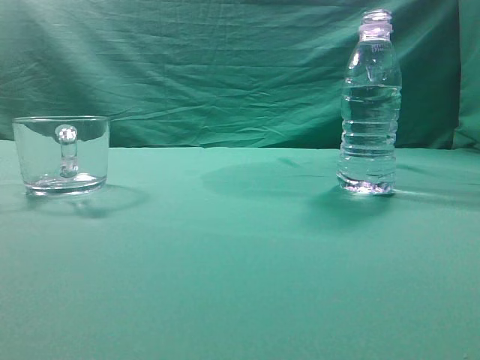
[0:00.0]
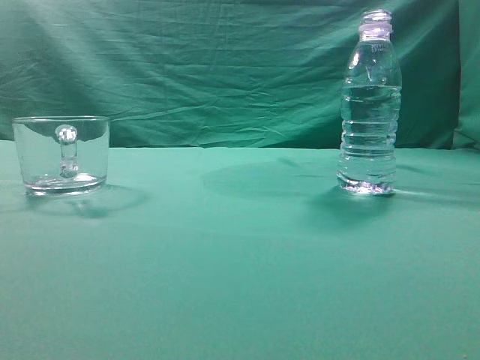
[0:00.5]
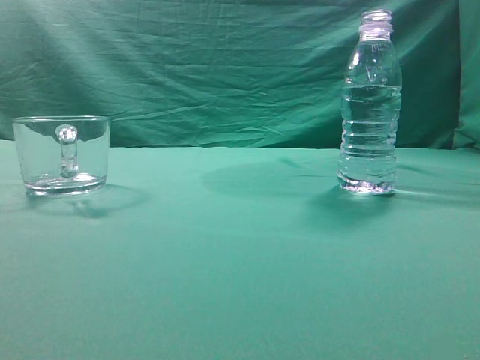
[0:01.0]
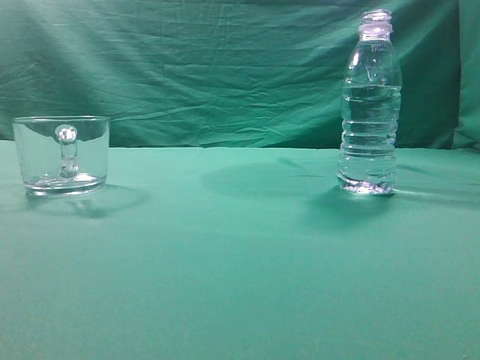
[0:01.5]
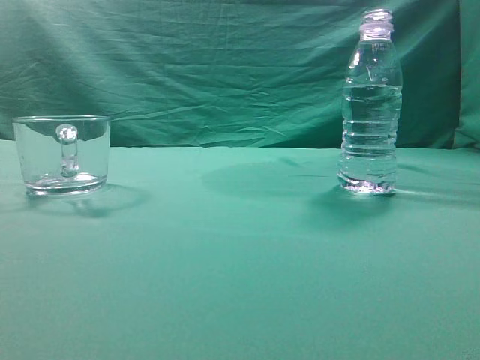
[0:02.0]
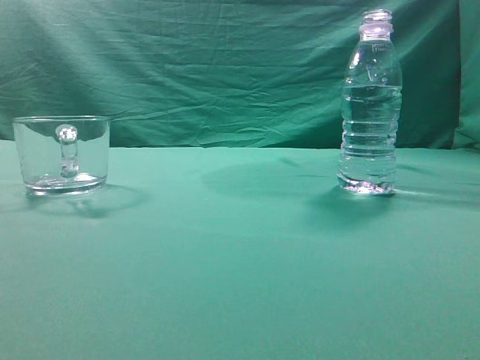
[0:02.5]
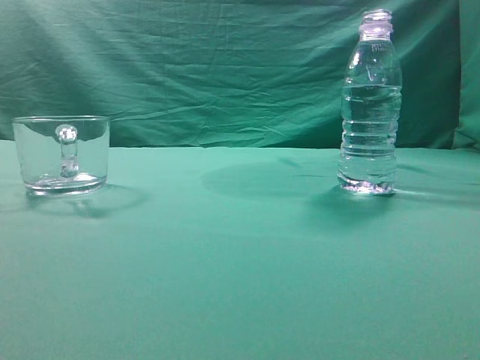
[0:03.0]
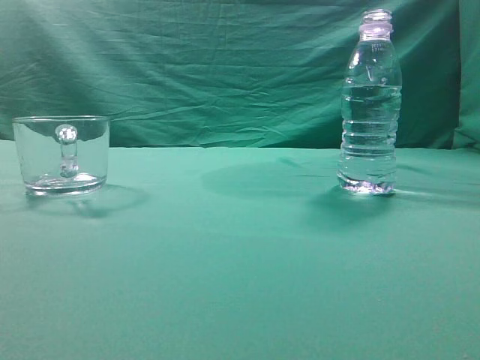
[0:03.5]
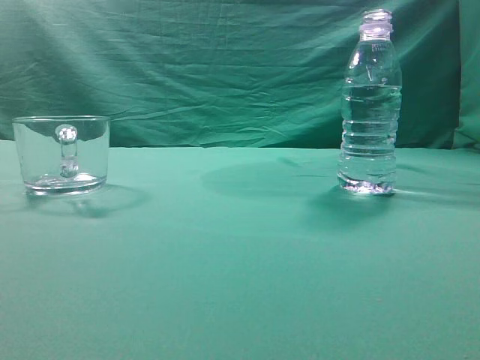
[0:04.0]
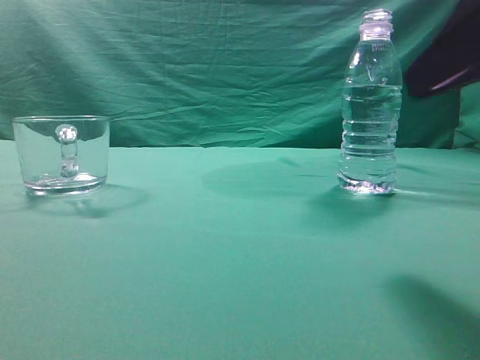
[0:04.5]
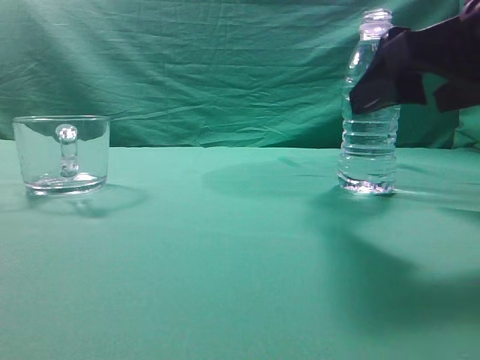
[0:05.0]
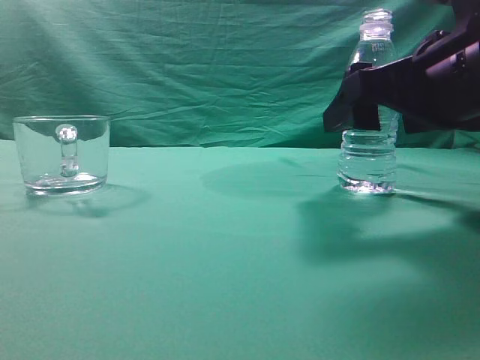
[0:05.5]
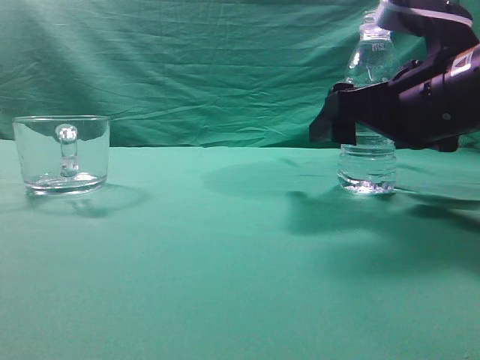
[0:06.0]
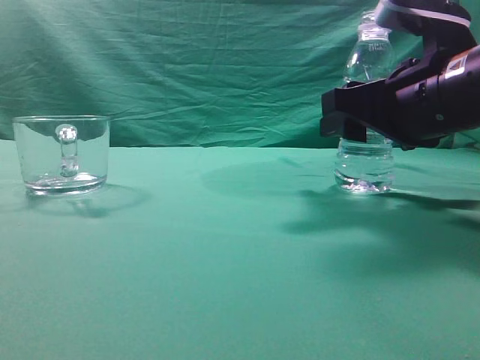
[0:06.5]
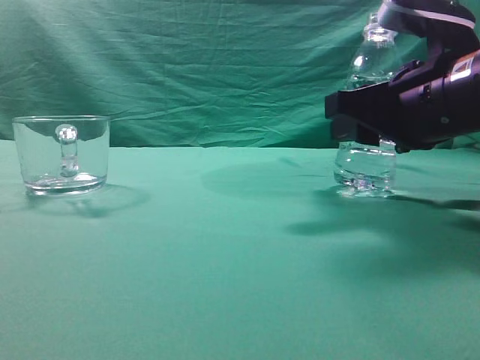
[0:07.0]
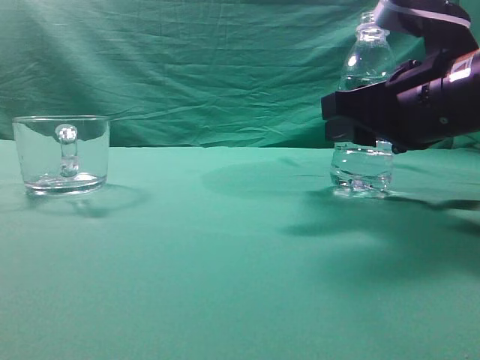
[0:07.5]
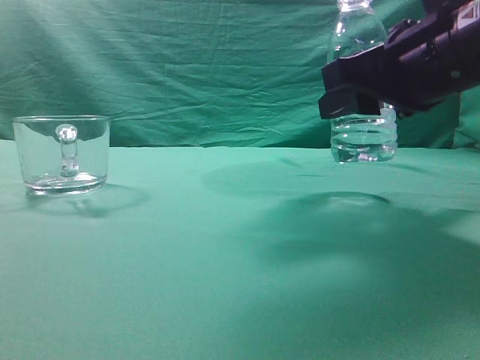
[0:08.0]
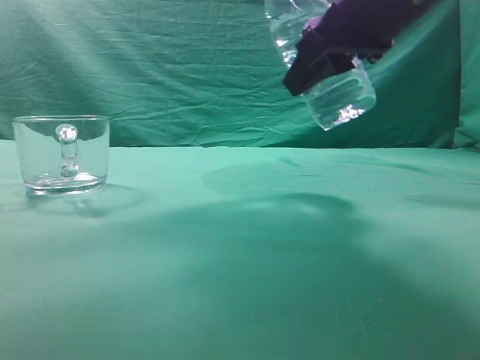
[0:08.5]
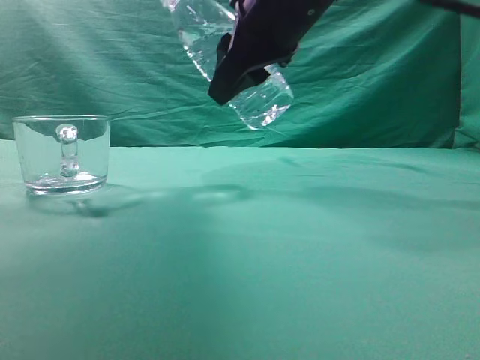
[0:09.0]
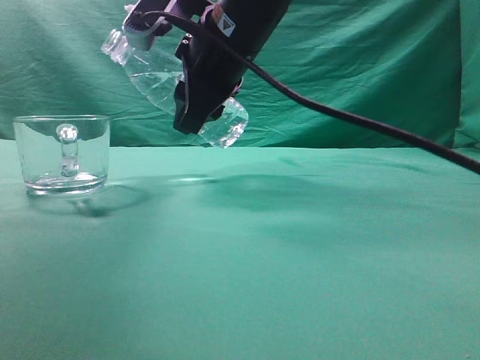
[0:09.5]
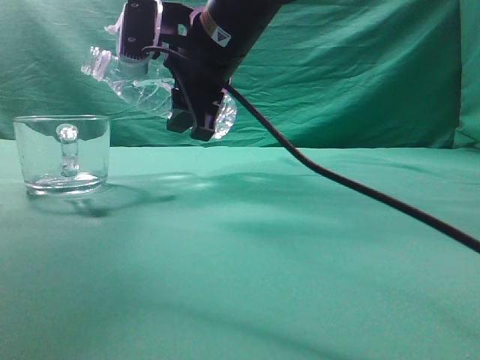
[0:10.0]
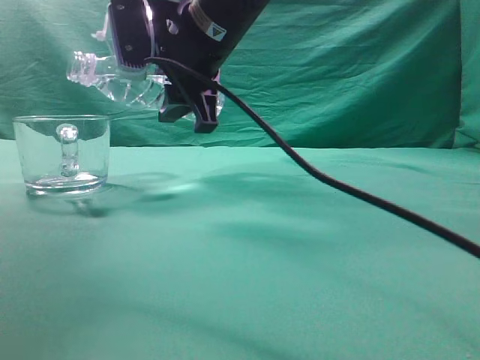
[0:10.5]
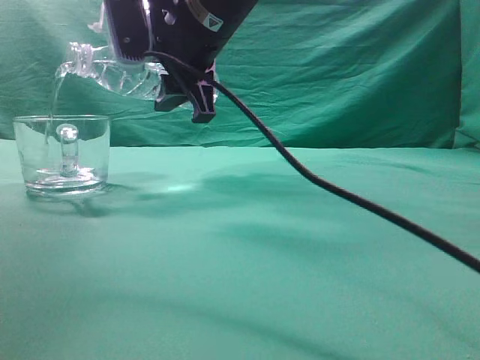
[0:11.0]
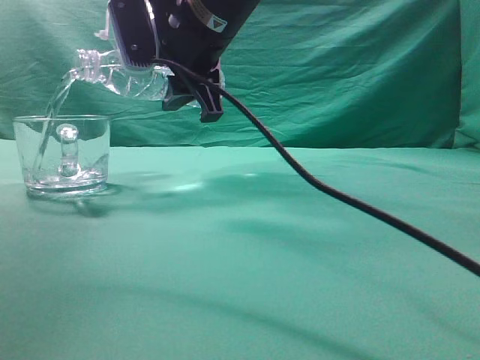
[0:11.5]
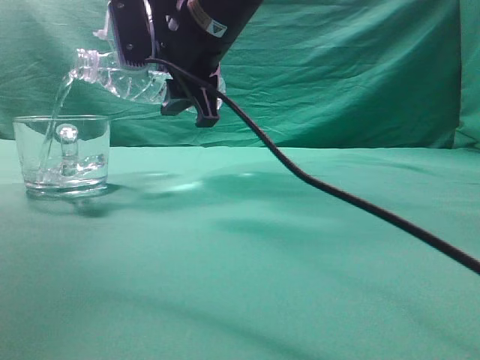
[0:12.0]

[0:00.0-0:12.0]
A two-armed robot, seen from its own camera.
Task of the whole recording: pick up the water bottle and pour the water in it into the glass.
Step, 0:00.0 to 0:08.0: Grasp the mineral water bottle.
0:04.0 to 0:06.0: The right gripper heads forward, downward and to the left, covering approximately 20 cm, and opens up.
0:06.0 to 0:08.0: The right gripper closes.
0:08.0 to 0:10.0: The right gripper goes roughly 20 cm to the left and forward.
0:10.0 to 0:12.0: The grippers move only a little.

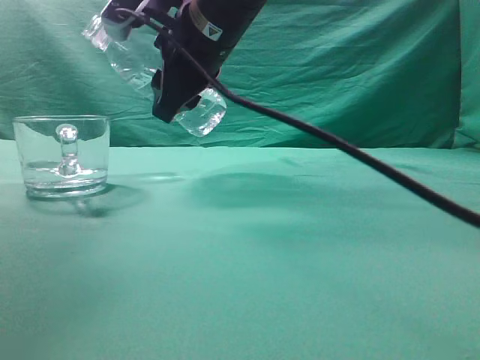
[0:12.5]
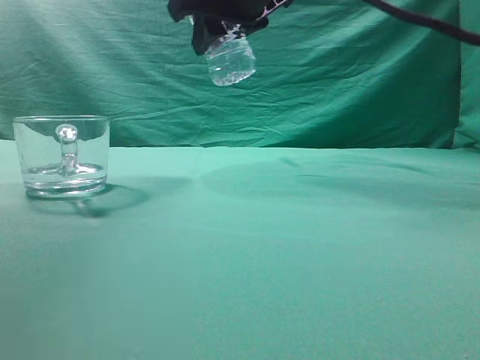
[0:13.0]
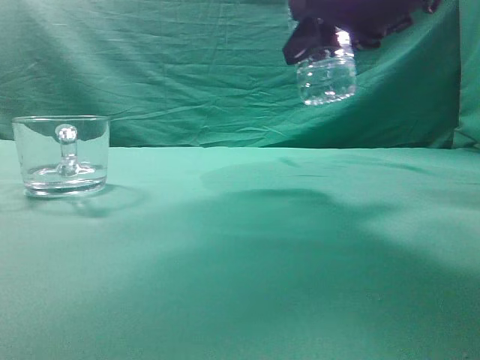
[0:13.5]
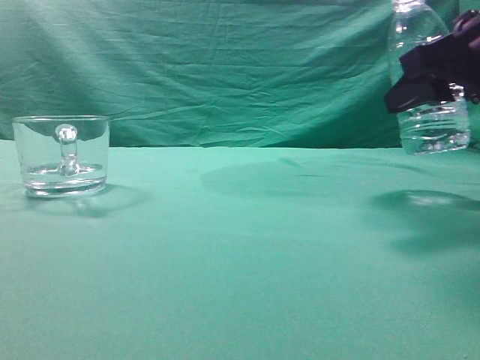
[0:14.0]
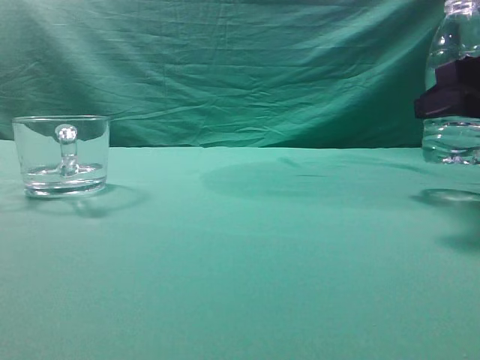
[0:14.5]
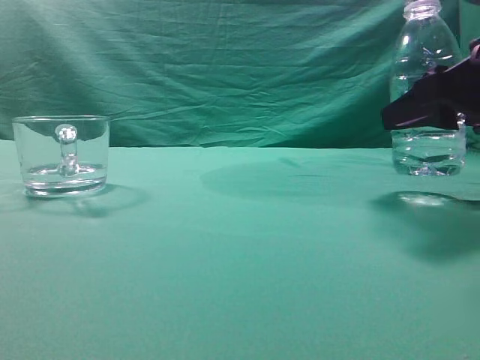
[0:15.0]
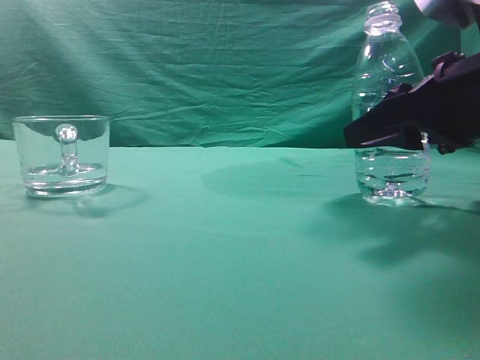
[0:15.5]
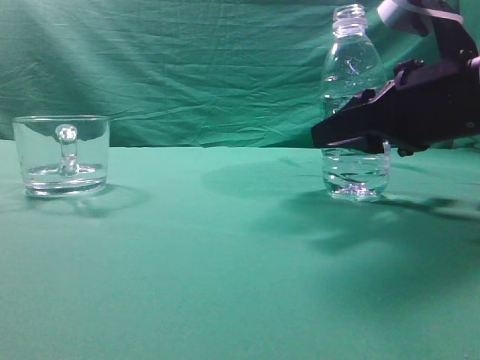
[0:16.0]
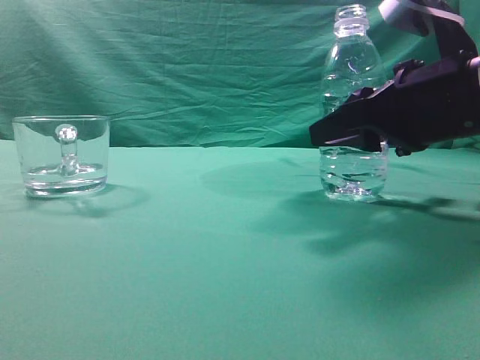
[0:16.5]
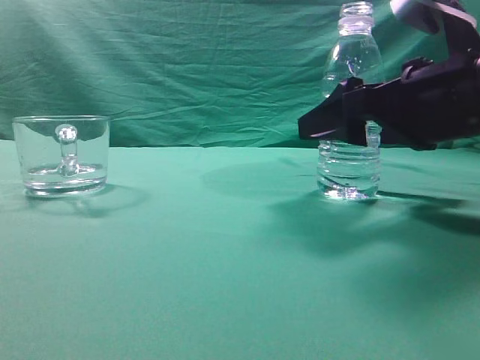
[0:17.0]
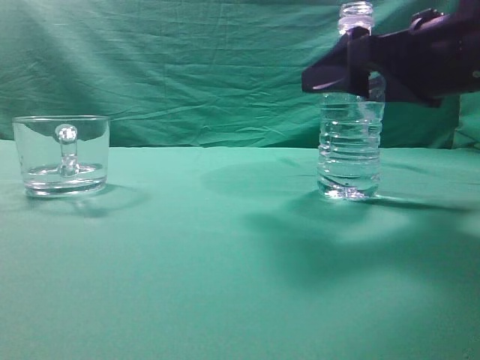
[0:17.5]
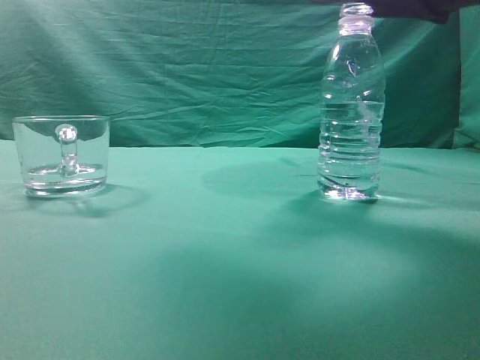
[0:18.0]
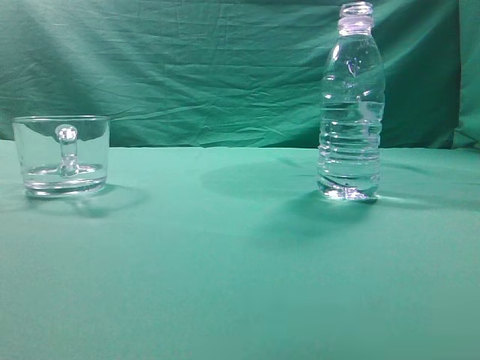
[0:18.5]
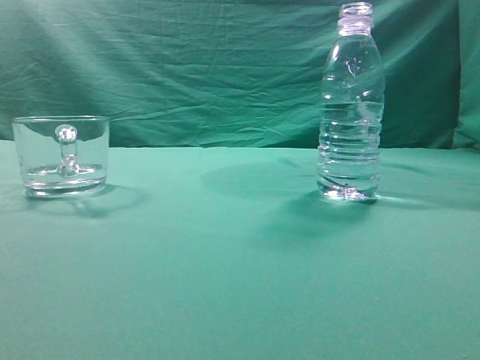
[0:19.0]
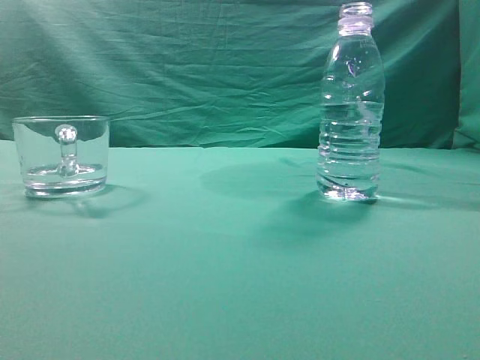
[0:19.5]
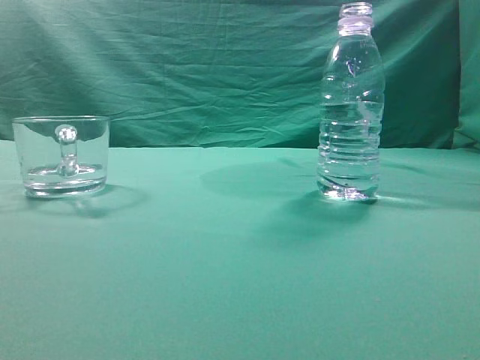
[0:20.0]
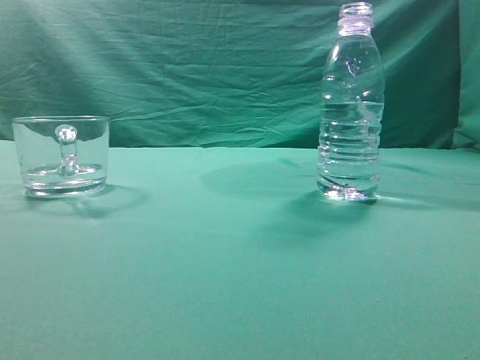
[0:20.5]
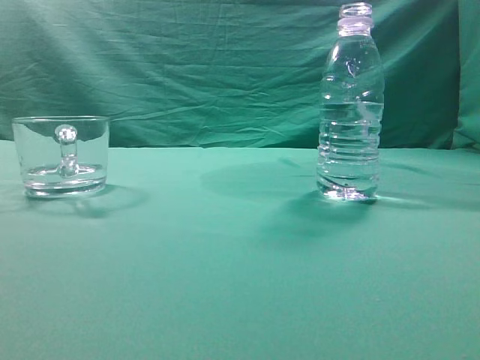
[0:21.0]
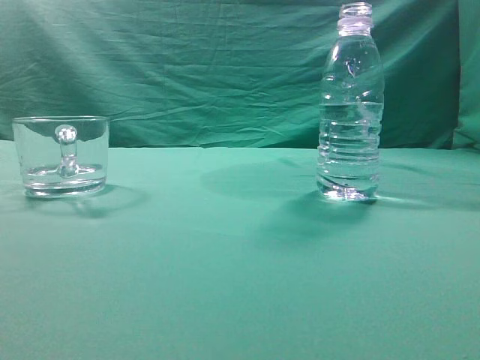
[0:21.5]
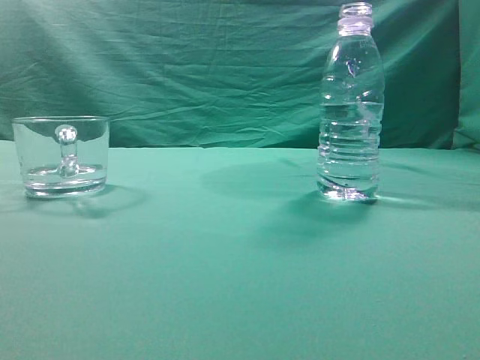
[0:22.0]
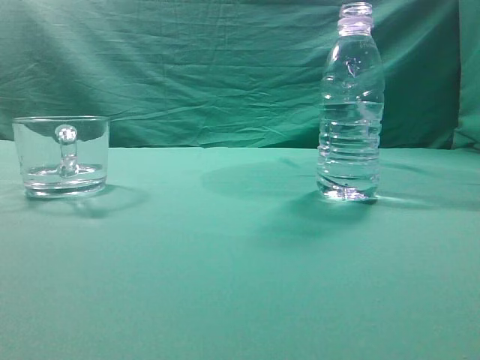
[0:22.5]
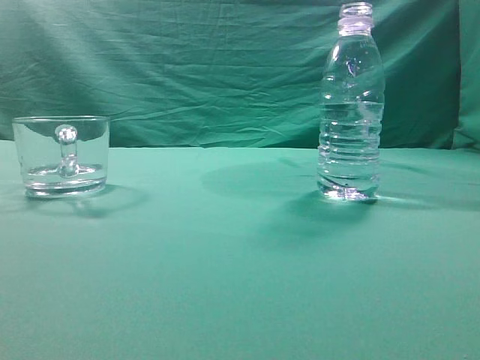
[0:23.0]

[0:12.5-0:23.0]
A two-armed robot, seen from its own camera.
Task of the whole recording: pick up the water bottle and pour the water in it into the glass.
0:12.5 to 0:14.5: The right gripper is displaced to the right by roughly 30 cm.
0:14.5 to 0:16.5: The right gripper goes approximately 10 cm to the left.
0:16.5 to 0:19.0: The right gripper heads upward and backward, covering approximately 30 cm, and closes up.
